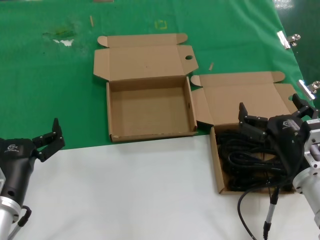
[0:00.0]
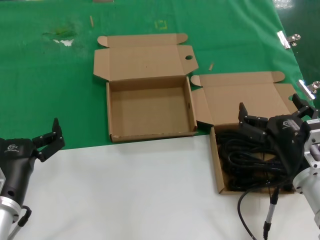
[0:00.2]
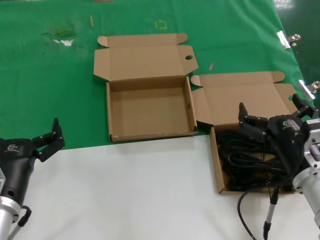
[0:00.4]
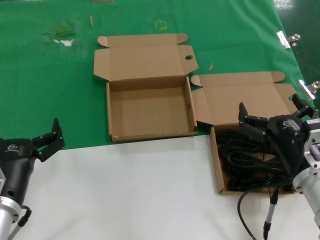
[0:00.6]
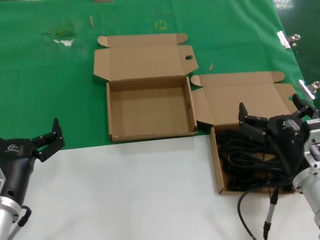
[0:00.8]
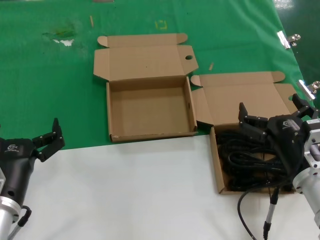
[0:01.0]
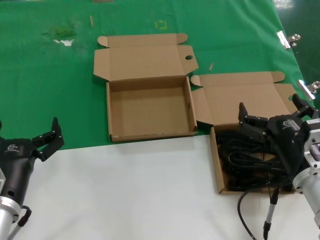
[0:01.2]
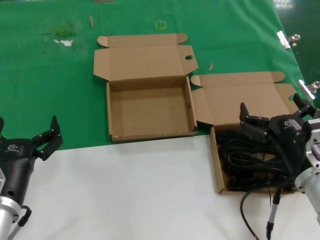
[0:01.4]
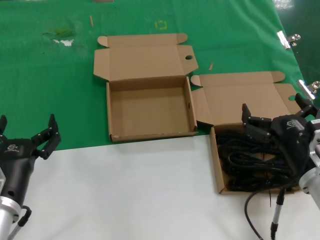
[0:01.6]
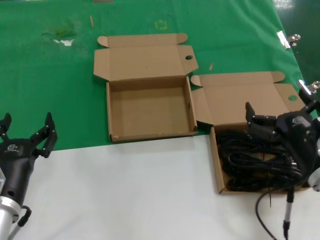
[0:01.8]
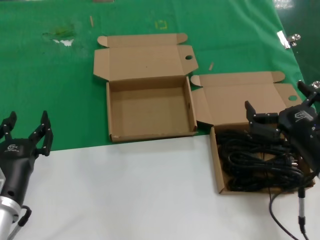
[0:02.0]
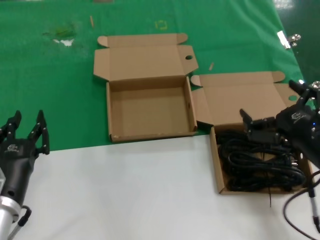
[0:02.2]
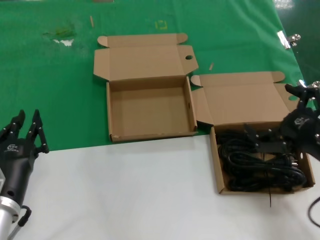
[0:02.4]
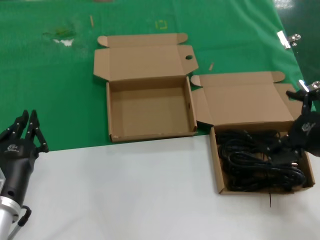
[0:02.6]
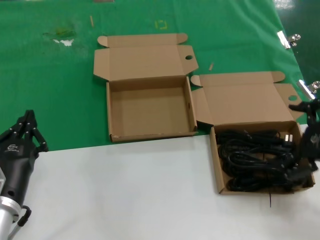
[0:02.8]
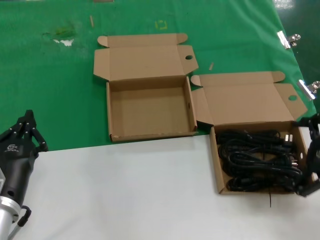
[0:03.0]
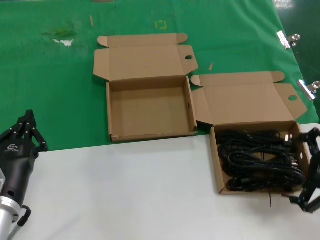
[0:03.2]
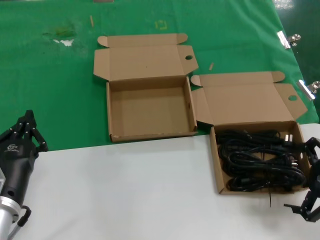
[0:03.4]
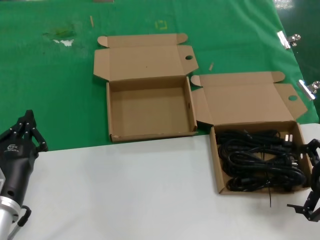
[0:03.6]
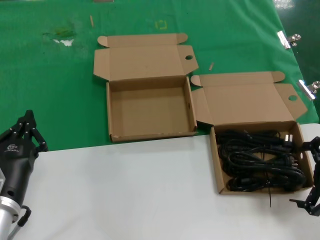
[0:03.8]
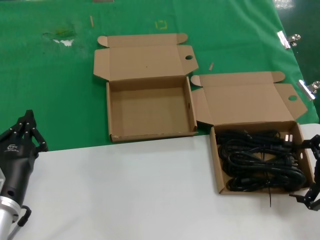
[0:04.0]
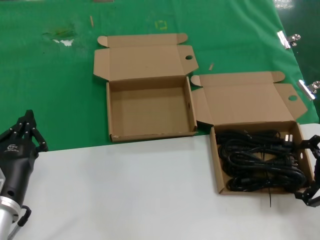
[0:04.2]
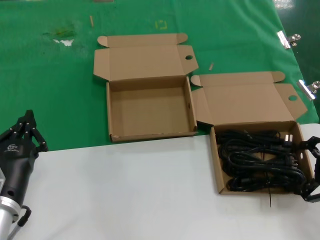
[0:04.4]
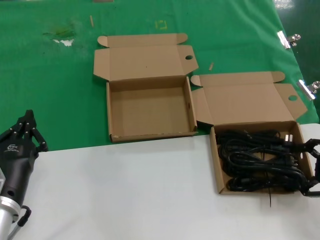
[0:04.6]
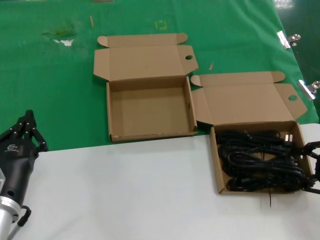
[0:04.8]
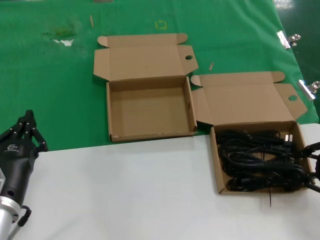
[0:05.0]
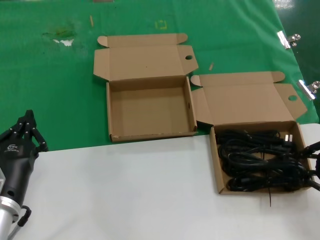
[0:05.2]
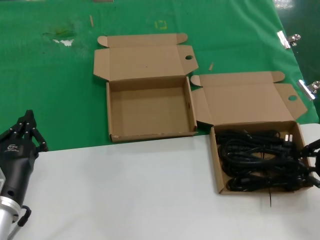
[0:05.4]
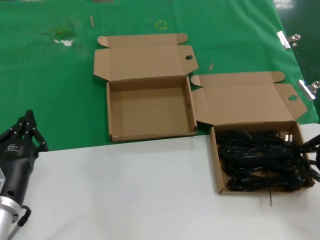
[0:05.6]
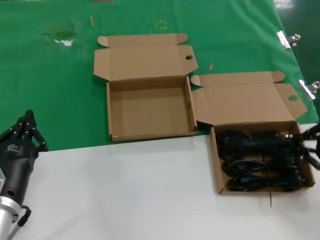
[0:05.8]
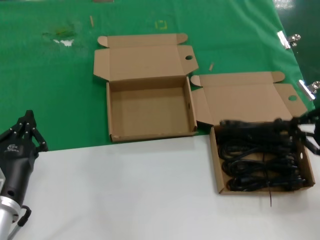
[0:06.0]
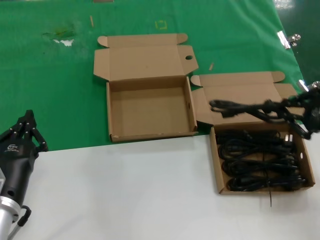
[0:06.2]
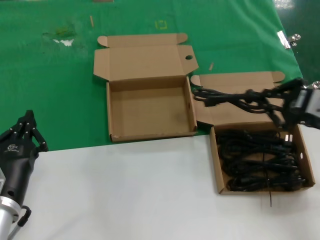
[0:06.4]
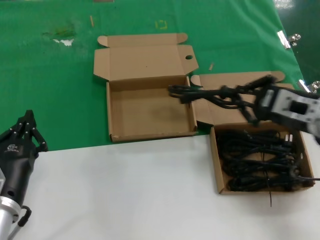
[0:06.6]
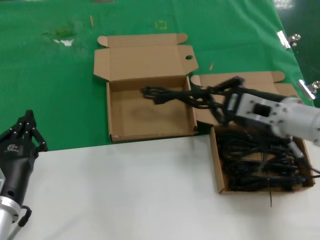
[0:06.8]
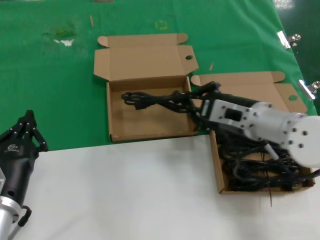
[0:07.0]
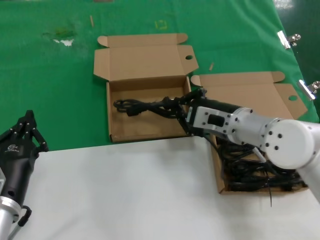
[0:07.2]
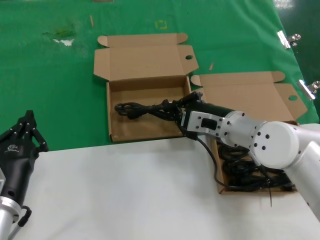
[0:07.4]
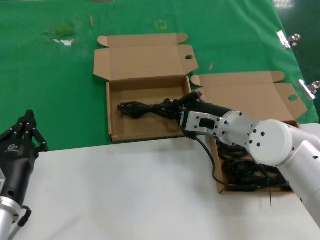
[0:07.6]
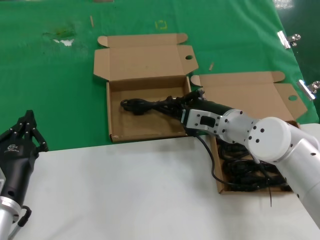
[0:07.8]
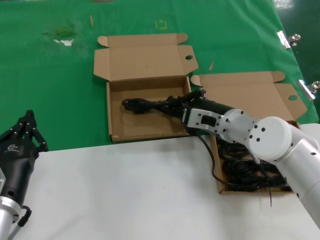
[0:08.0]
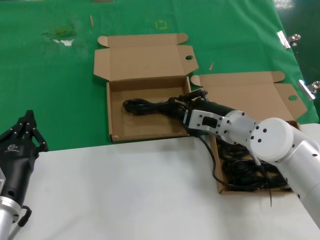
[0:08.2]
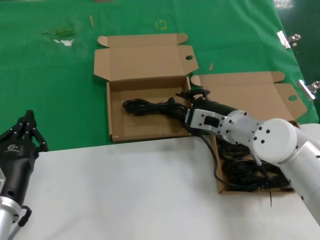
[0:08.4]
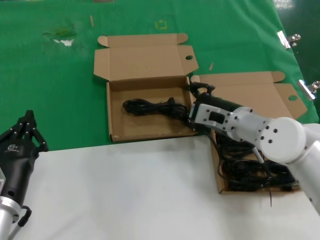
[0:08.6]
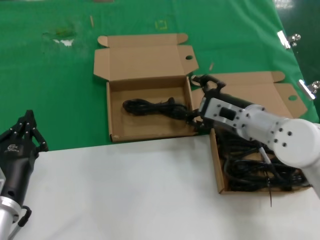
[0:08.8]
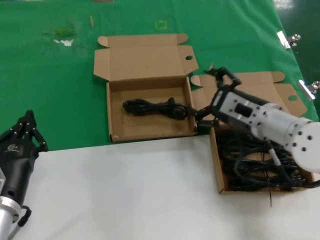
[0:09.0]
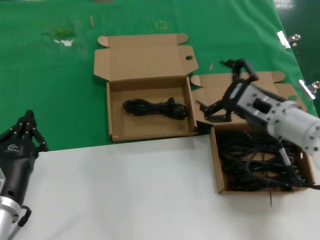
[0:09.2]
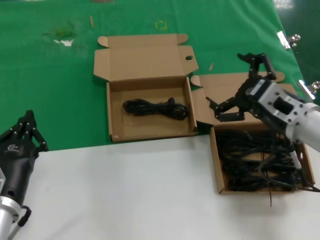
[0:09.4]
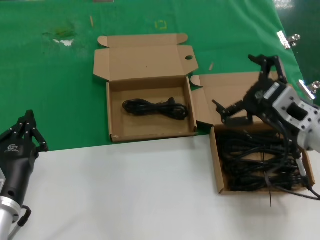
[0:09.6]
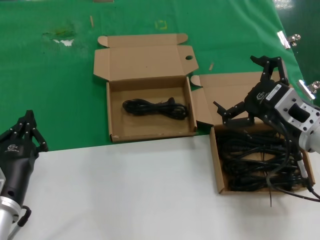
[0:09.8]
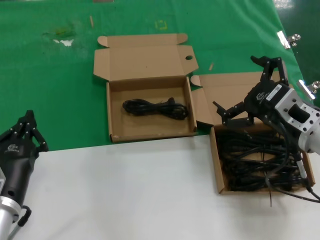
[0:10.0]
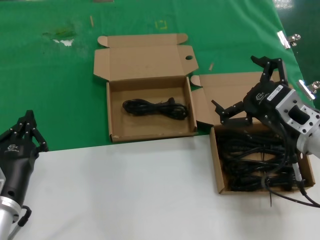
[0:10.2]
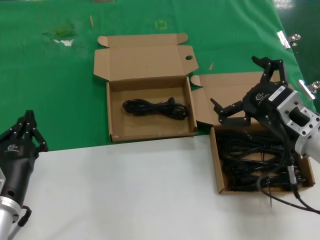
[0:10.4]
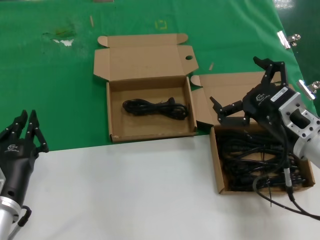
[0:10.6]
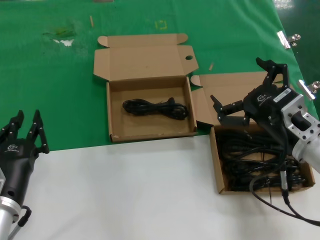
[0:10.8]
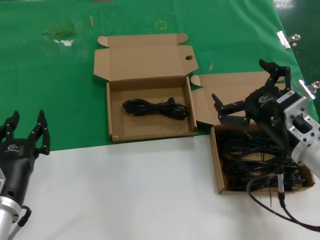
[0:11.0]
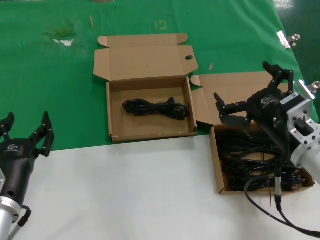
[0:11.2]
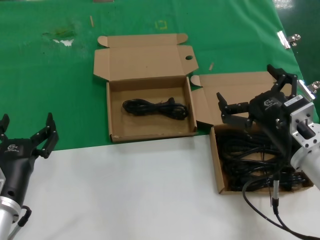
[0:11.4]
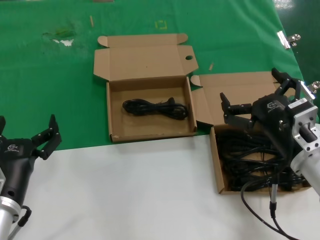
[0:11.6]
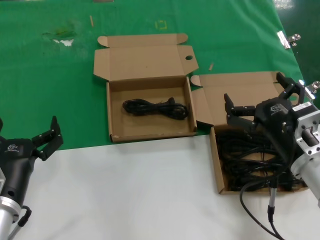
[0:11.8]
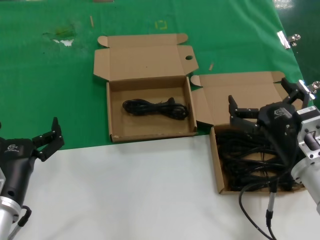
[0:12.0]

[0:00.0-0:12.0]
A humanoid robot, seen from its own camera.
Task of the whole recording: take the parts from the box containing them and put them into an empty box.
Step, 0:00.0 to 0:05.4: Grasp the data cable.
Step, 0:05.6 to 0:08.2: Place the data cable in the another box.
0:00.0 to 0:01.6: The two hands keep their place.
0:01.6 to 0:03.0: The right hand heads to the right and upward, covering approximately 15 cm.
0:03.0 to 0:04.4: The right hand changes place by roughly 5 cm.
0:04.4 to 0:06.0: The right hand shifts roughly 5 cm upward.
0:06.0 to 0:07.6: The right hand shifts approximately 30 cm to the left, forward and downward.
0:07.6 to 0:09.0: The right hand shifts by about 5 cm.
0:09.0 to 0:10.4: The right hand shifts about 10 cm backward.
0:10.4 to 0:12.0: The right hand shifts some 5 cm downward.

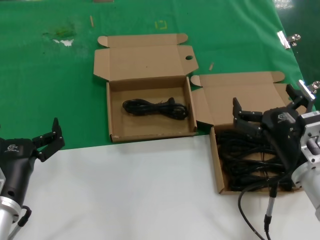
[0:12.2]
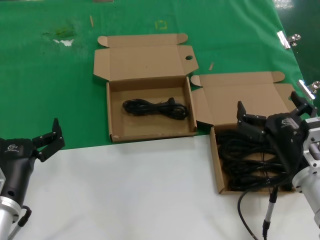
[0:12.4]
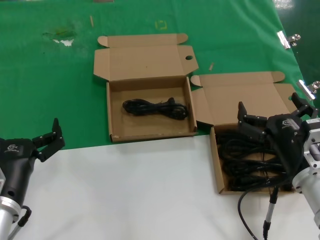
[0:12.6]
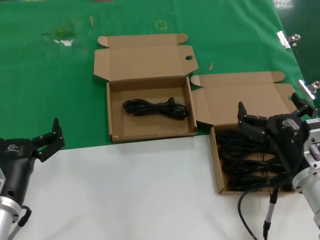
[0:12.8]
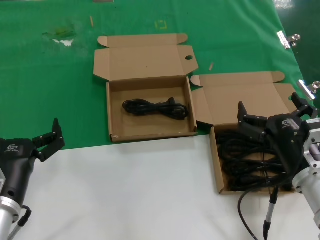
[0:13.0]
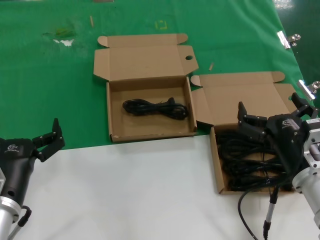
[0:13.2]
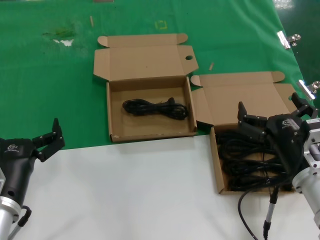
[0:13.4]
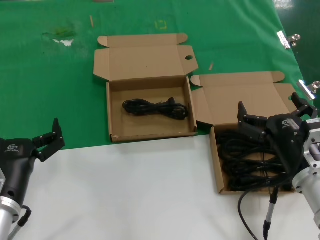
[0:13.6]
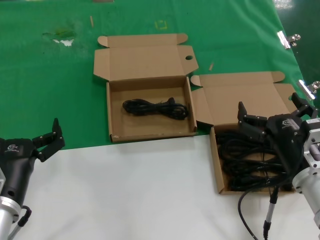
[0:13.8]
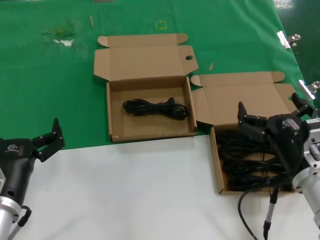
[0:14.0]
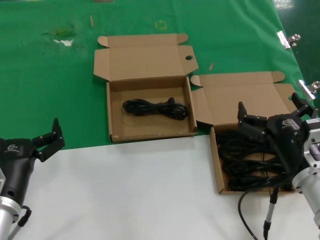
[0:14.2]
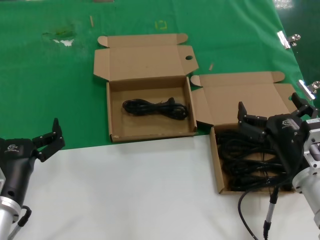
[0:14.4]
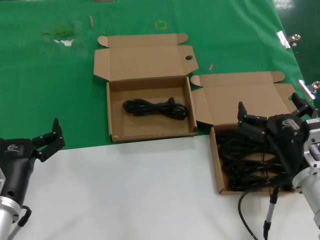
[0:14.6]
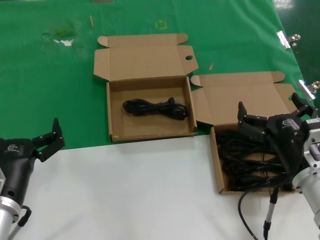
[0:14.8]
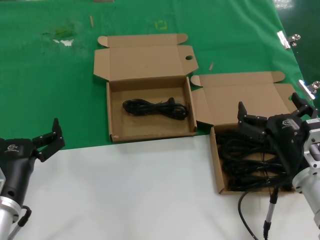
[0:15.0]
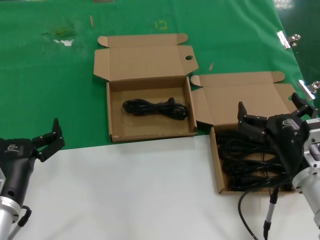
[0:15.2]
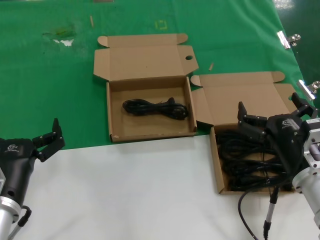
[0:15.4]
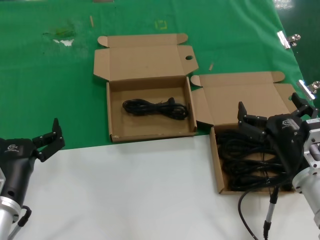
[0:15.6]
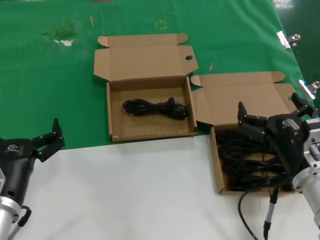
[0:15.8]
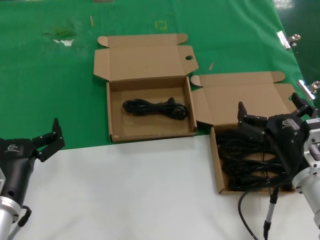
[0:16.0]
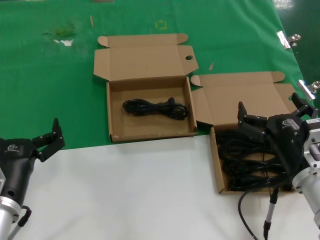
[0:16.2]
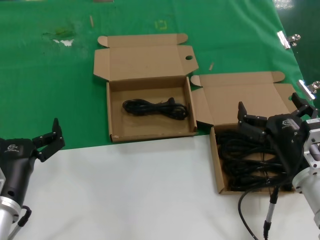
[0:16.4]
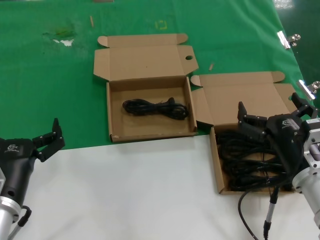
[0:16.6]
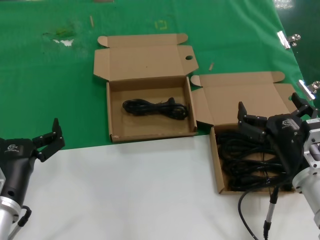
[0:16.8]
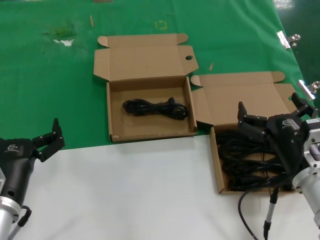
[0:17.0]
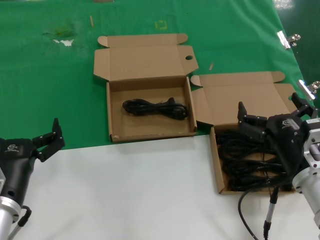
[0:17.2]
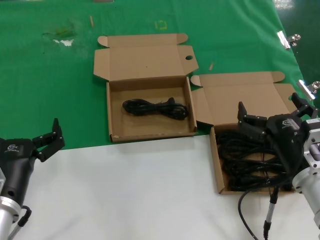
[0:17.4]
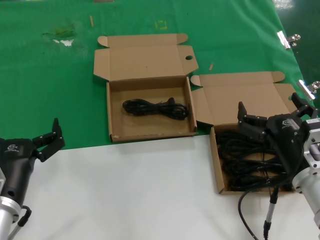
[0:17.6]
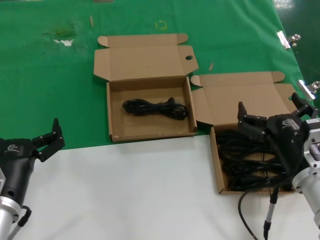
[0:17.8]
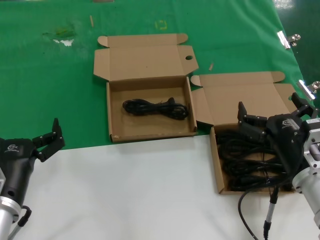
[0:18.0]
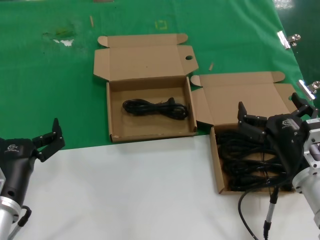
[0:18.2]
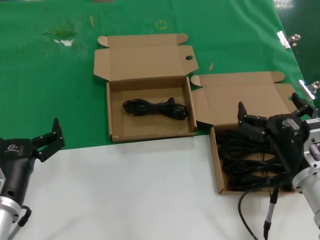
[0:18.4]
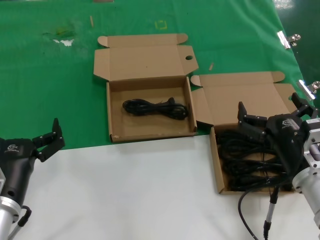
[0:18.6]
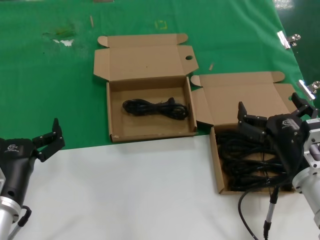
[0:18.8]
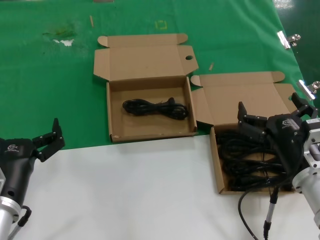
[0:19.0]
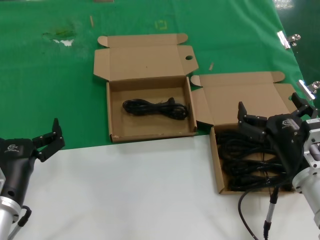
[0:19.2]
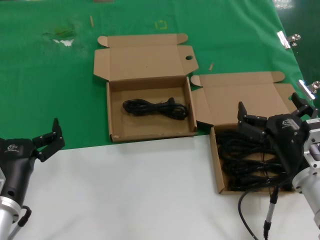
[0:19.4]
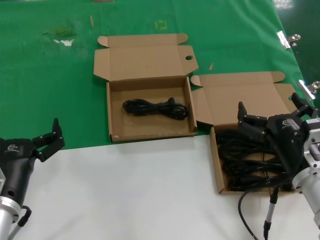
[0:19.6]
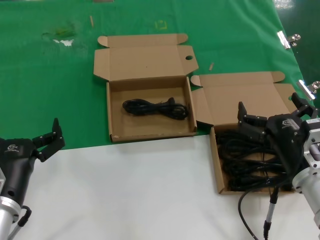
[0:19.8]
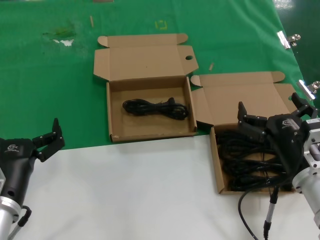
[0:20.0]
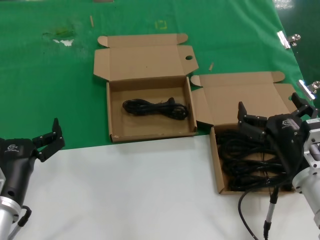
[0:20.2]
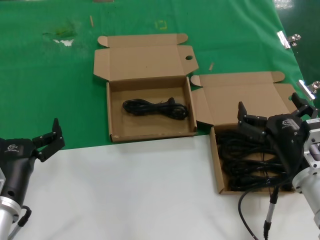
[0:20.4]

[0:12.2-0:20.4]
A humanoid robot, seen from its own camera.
Task of the whole recording: take the parts from the box containing them and put them into an empty box.
0:12.2 to 0:13.8: The hands stay close to where they were, moving slightly.
0:13.8 to 0:20.4: Both hands stay put.

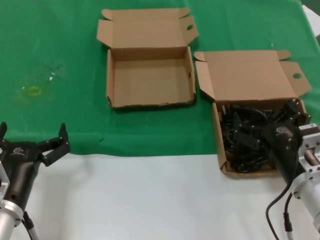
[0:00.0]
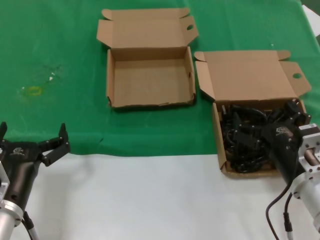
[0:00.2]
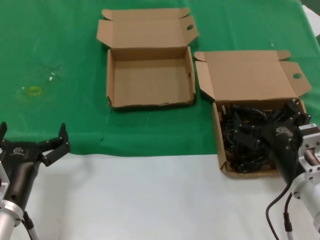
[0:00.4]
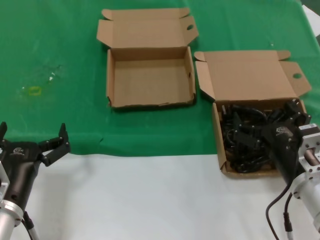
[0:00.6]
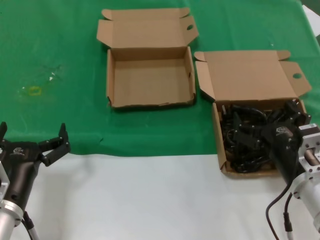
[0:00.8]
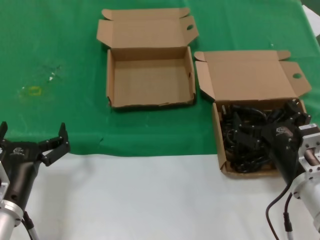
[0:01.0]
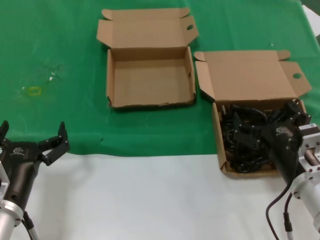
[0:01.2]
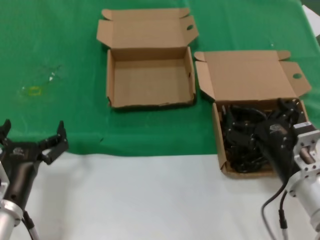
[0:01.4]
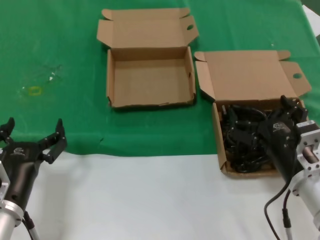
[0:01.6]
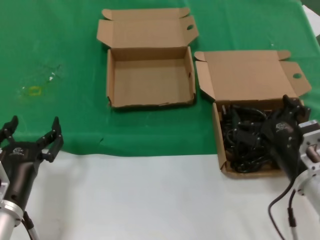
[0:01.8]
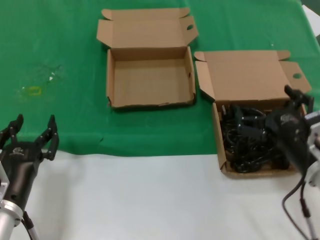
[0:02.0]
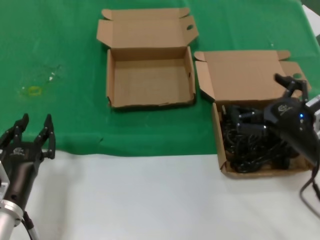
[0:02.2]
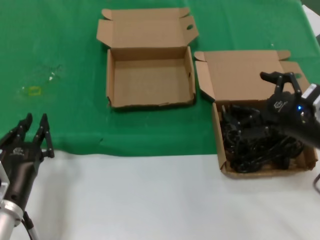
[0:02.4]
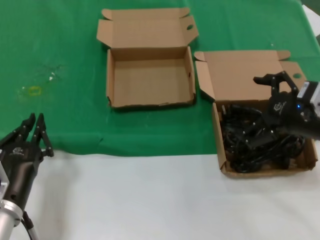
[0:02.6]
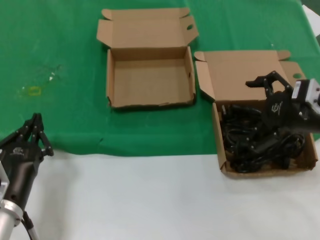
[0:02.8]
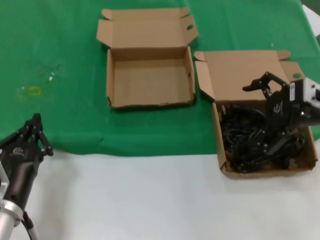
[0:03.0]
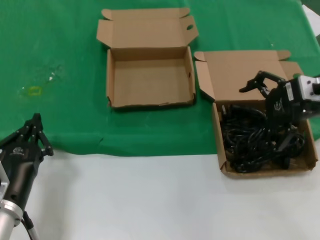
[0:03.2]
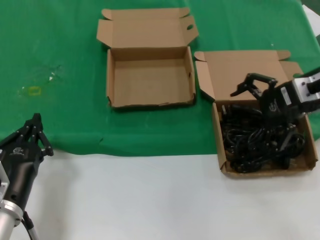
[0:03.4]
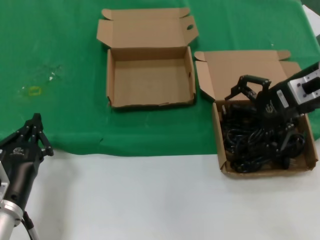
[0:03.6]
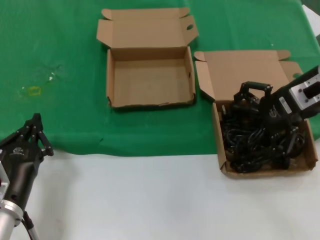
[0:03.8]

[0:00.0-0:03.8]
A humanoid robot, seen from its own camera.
Task of the whole recording: take the parts from the box containing them and put them into an empty box.
0:00.0 to 0:01.2: Neither hand changes place.
0:01.2 to 0:02.6: The right hand moves upward, to the right and forward, some 15 cm.
0:02.6 to 0:03.8: The right hand heads forward and upward, covering some 15 cm.
